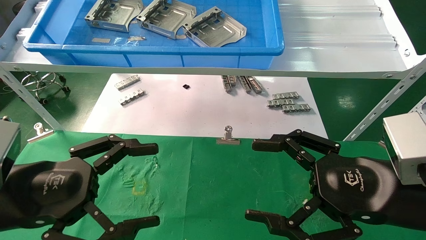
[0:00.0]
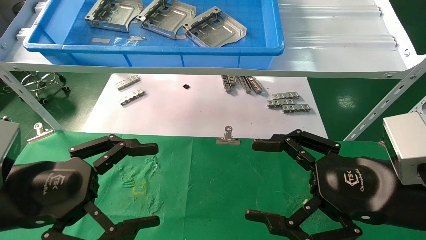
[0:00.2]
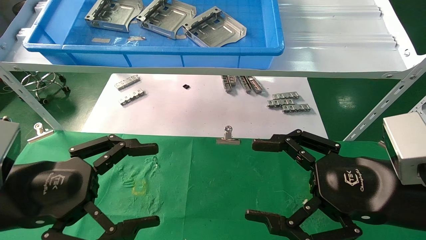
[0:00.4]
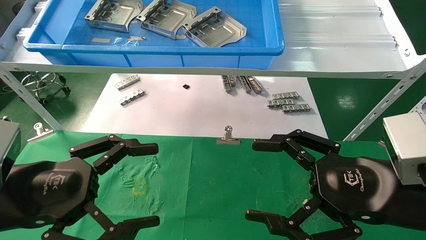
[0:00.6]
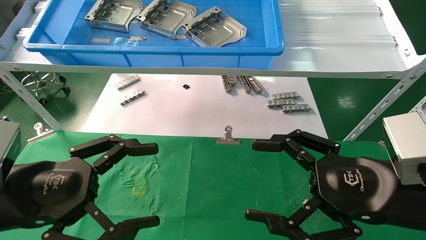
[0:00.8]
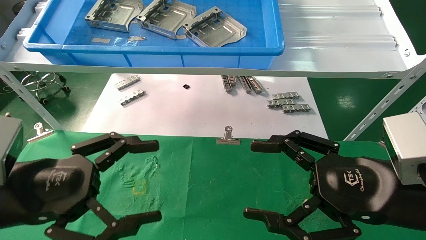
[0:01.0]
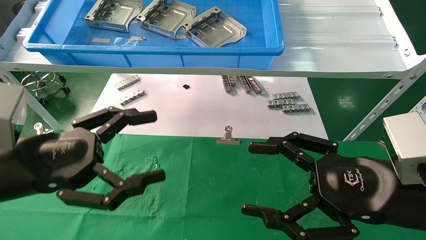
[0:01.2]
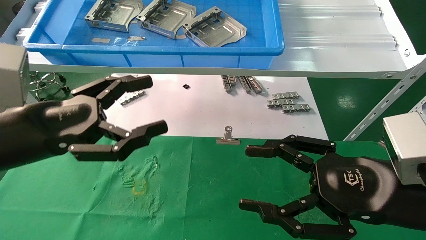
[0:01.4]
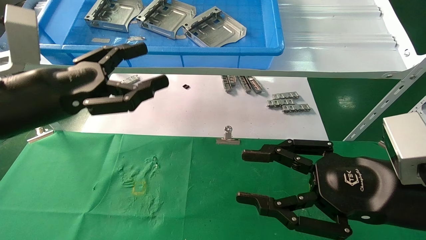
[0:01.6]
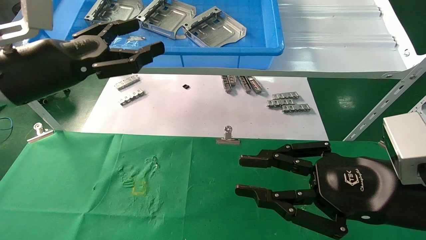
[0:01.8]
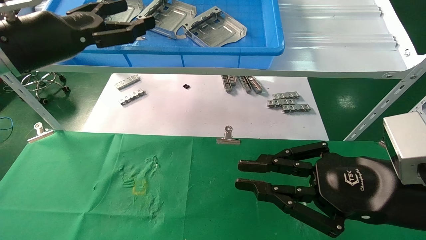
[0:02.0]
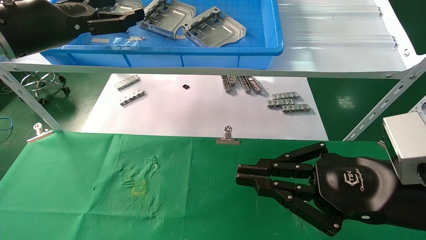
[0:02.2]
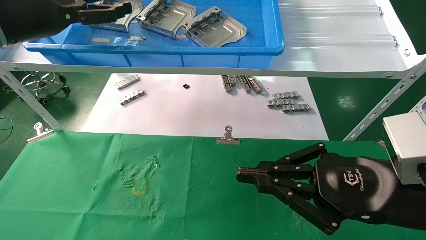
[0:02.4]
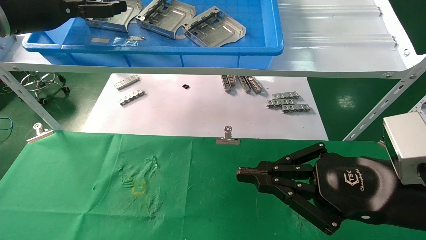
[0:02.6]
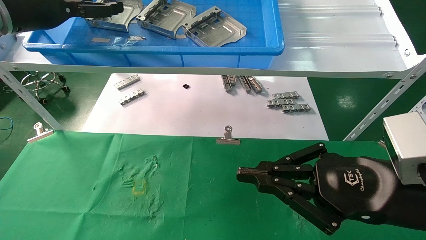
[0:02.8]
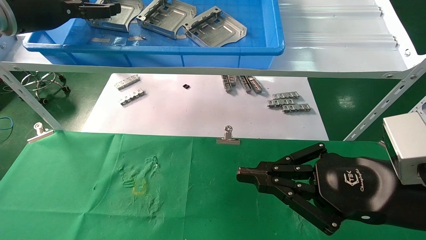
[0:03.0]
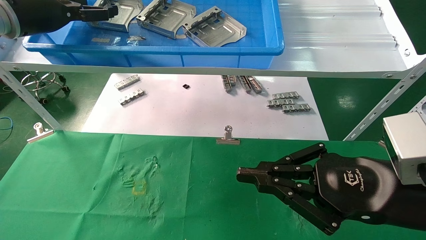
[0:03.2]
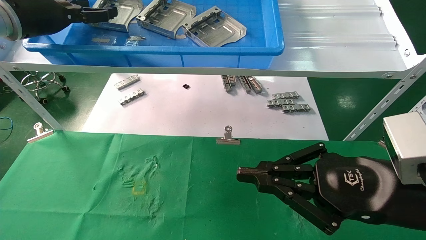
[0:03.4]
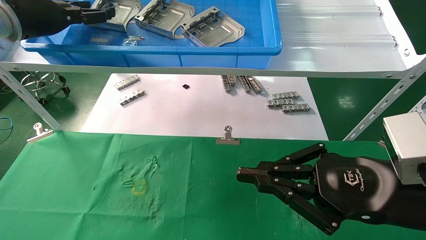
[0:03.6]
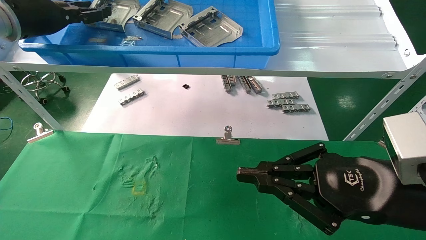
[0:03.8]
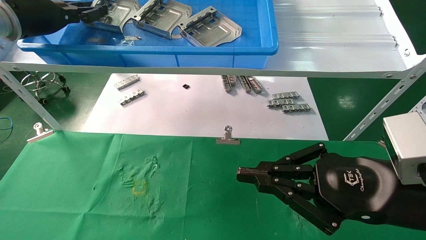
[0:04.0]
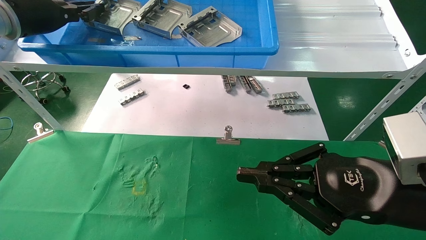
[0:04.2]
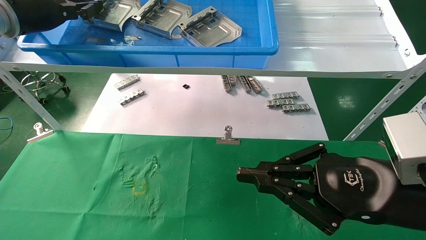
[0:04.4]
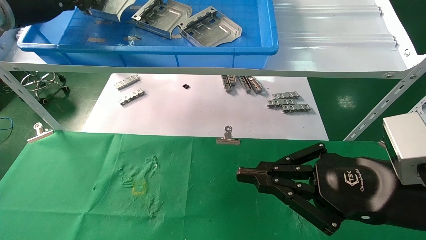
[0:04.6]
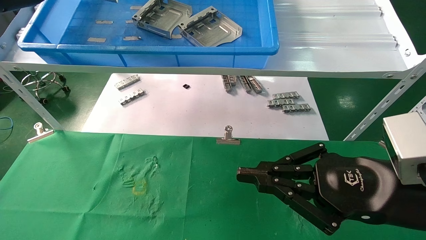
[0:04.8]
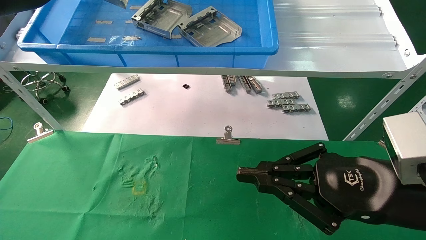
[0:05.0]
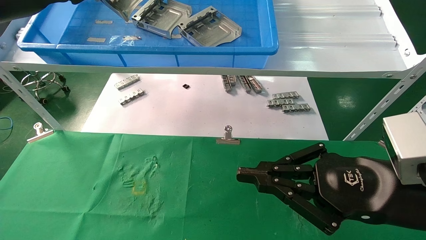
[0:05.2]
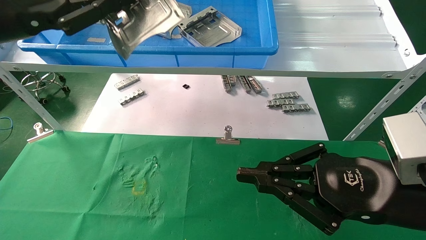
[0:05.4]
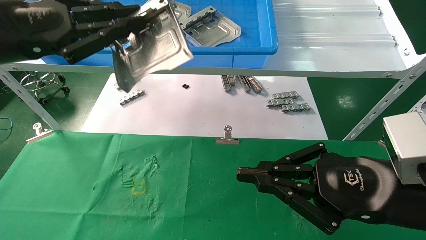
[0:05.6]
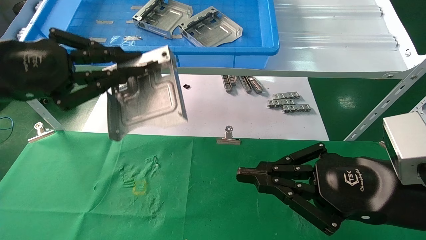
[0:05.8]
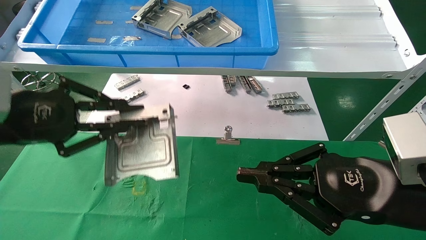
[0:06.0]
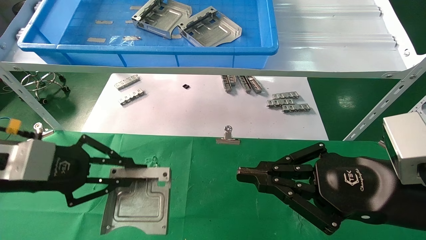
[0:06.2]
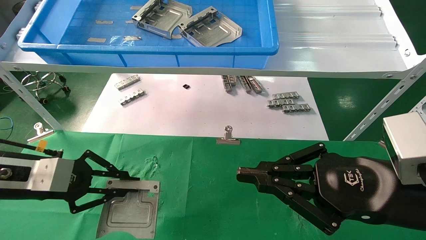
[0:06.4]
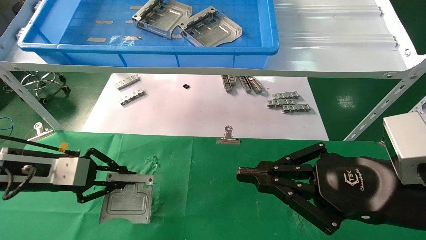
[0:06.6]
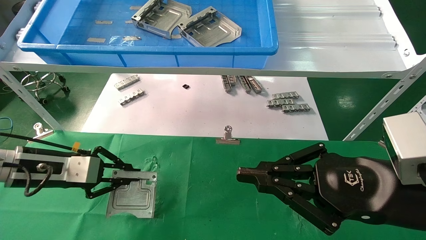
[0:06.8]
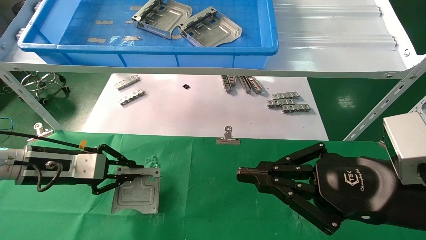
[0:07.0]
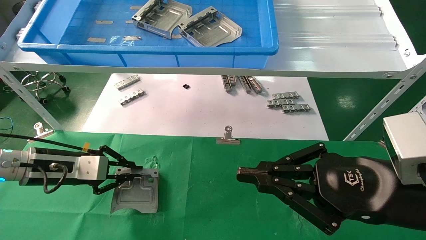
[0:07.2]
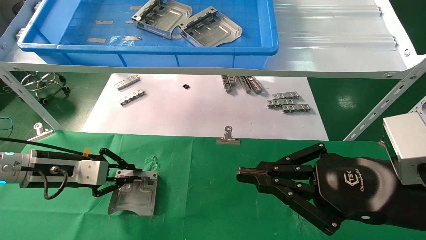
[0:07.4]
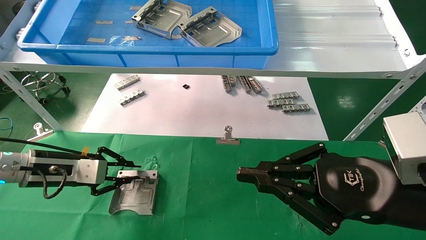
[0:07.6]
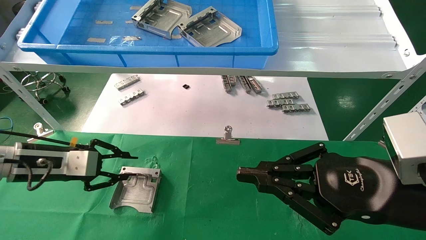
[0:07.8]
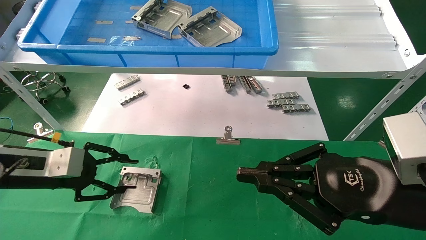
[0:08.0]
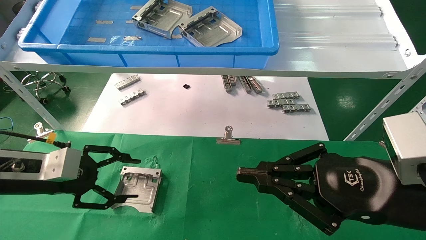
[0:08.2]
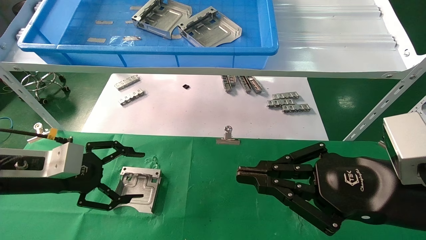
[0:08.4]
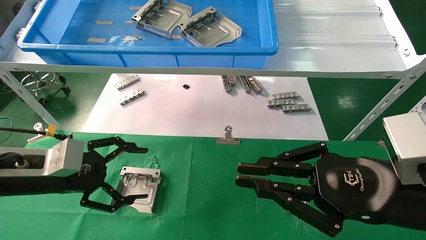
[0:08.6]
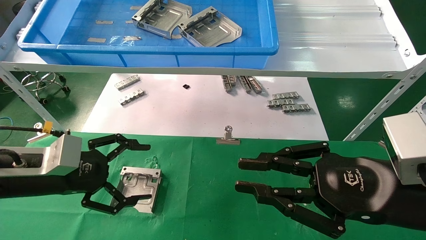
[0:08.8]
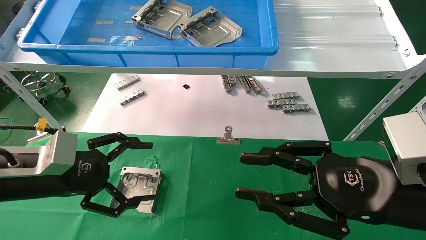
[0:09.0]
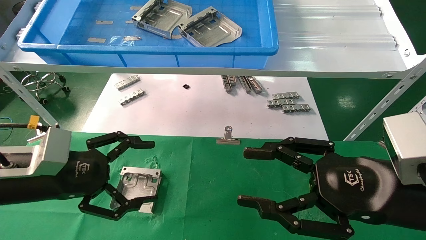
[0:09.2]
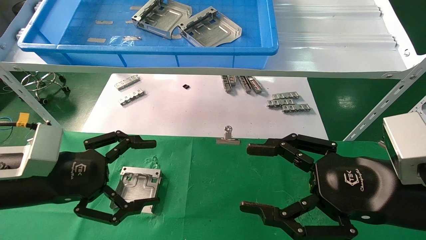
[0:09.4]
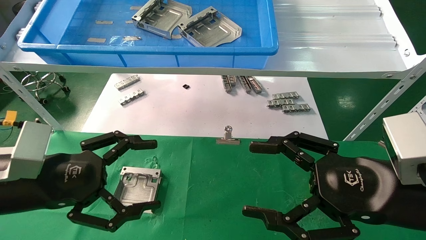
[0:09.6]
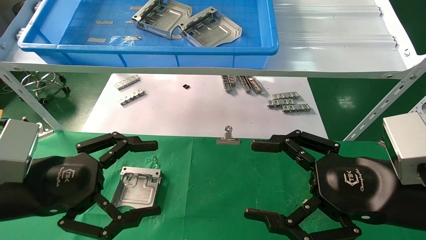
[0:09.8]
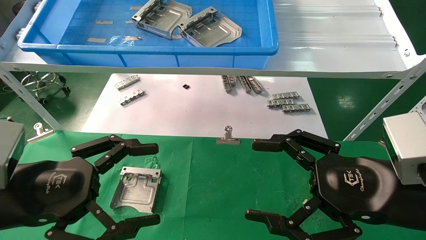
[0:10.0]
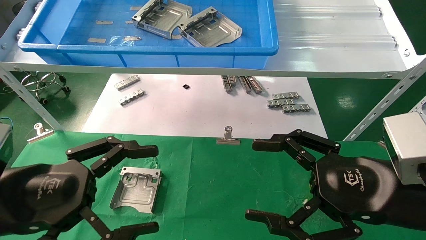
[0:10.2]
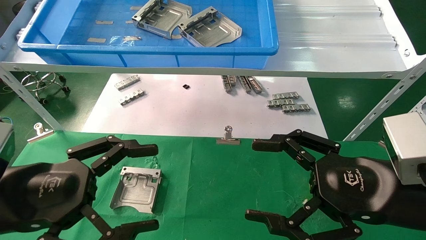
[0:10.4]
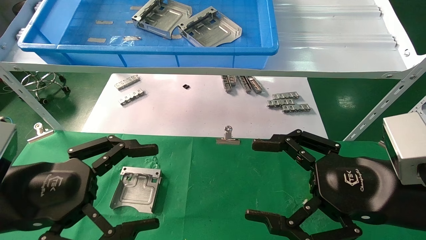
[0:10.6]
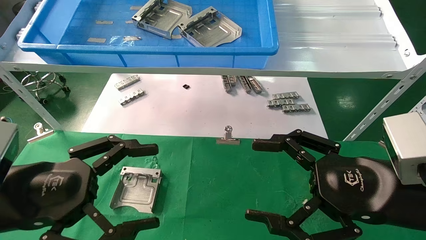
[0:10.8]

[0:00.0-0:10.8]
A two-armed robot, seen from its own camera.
Task of the whole recording: use the mechanical arm to pick up the parts and place them on the table.
Step, 0:01.4 to 0:04.2: Pick up the hard drive bracket from the feeding area.
Step, 0:04.4 to 0:07.8: Place the hard drive bracket into the box.
0:00.0 to 0:01.6: The right gripper closes its fingers; the left gripper heads upward and forward, covering approximately 10 cm.
0:01.6 to 0:03.0: The right gripper closes its fingers, while the left gripper goes roughly 20 cm upward, forward and to the left.
0:03.0 to 0:04.6: The left gripper closes up.
0:04.6 to 0:06.2: The left gripper goes approximately 25 cm downward and backward.
0:06.2 to 0:07.8: The left gripper travels forward and downward by approximately 10 cm.
0:07.8 to 0:09.2: The right gripper opens; the left gripper goes approximately 10 cm backward, and opens its fingers.
0:09.2 to 0:10.8: The right gripper opens. Meanwhile the left gripper moves backward, about 5 cm.
